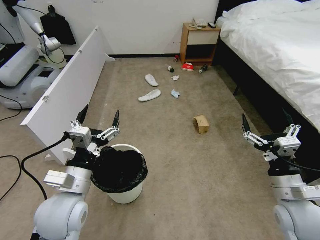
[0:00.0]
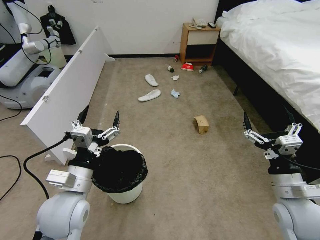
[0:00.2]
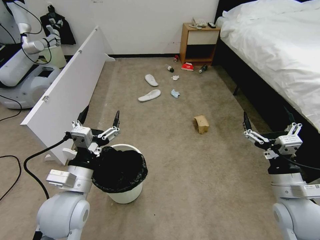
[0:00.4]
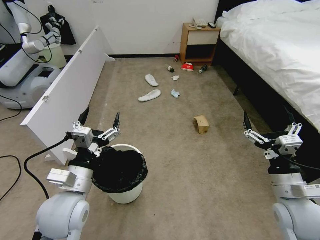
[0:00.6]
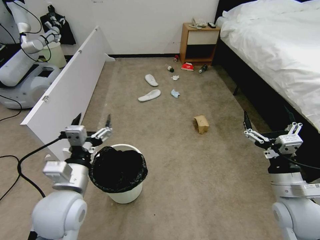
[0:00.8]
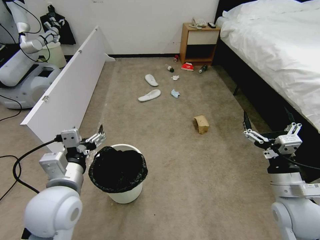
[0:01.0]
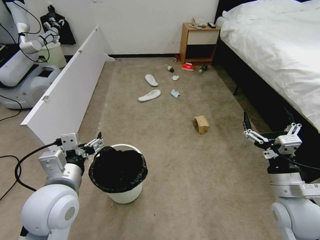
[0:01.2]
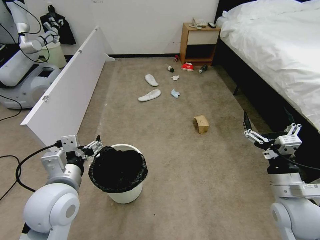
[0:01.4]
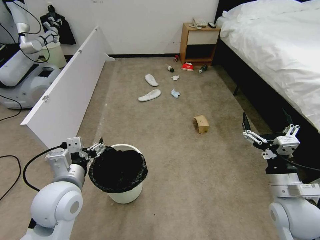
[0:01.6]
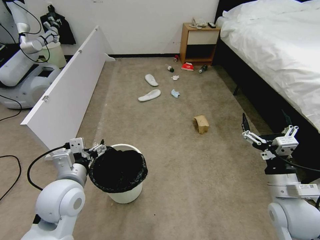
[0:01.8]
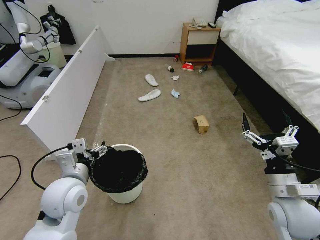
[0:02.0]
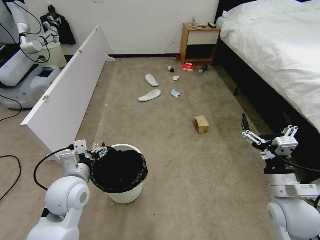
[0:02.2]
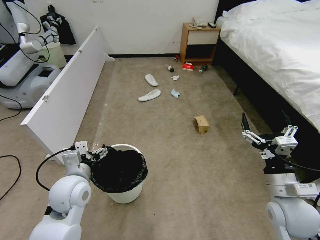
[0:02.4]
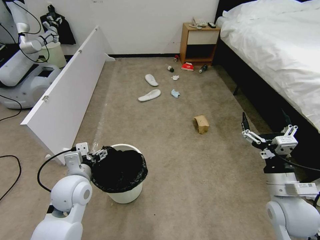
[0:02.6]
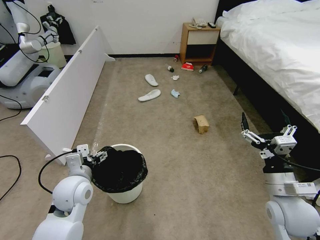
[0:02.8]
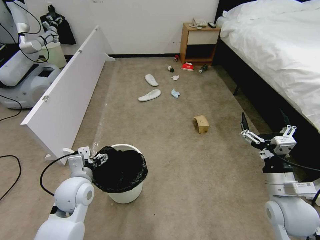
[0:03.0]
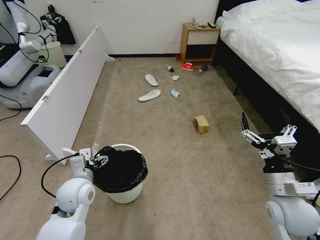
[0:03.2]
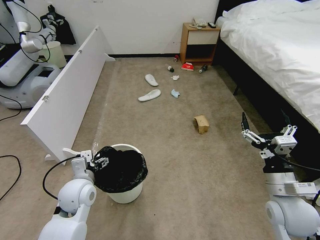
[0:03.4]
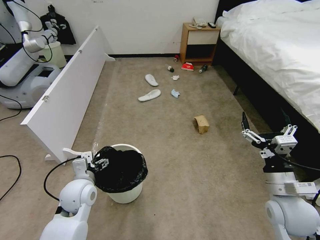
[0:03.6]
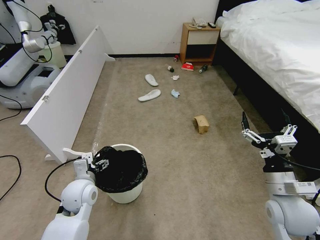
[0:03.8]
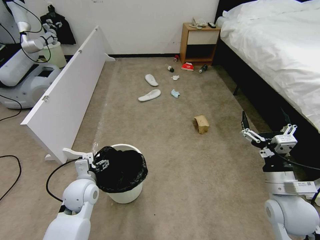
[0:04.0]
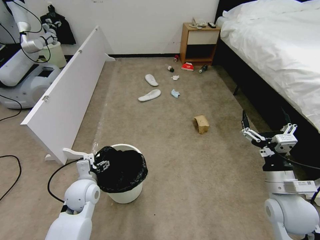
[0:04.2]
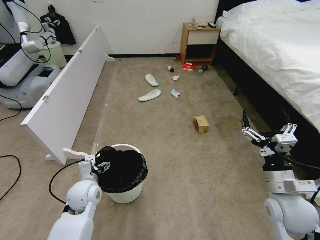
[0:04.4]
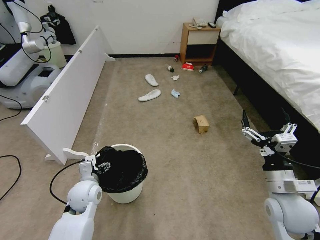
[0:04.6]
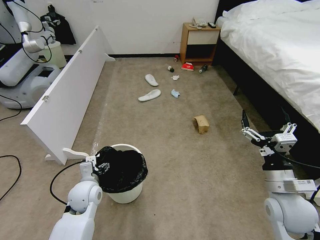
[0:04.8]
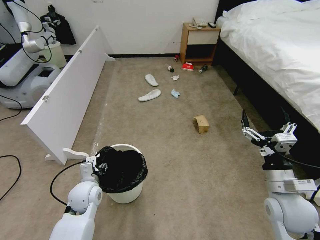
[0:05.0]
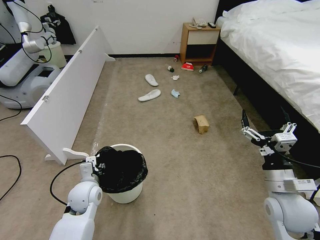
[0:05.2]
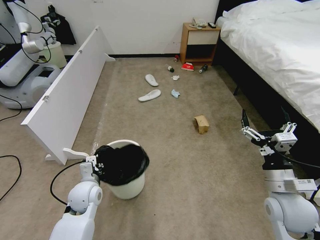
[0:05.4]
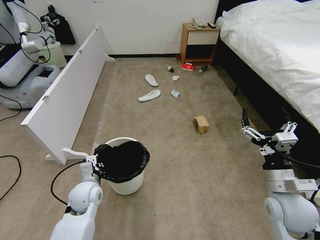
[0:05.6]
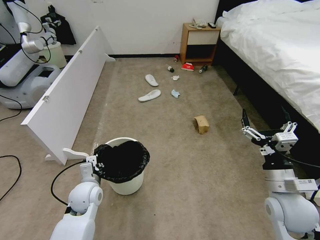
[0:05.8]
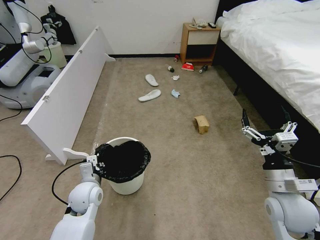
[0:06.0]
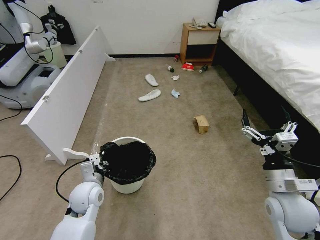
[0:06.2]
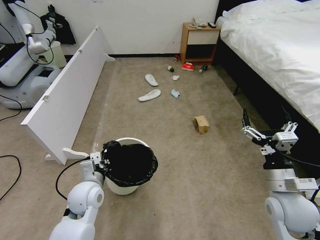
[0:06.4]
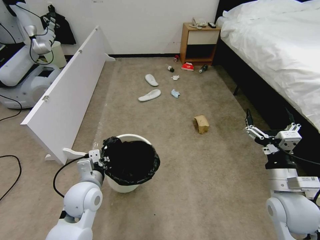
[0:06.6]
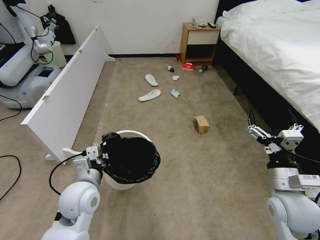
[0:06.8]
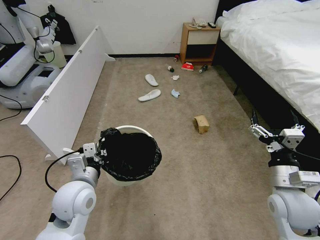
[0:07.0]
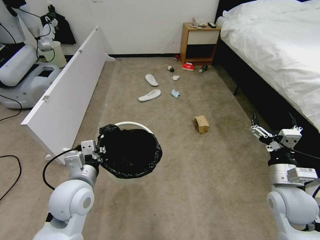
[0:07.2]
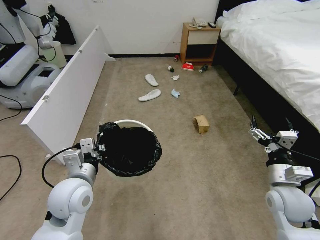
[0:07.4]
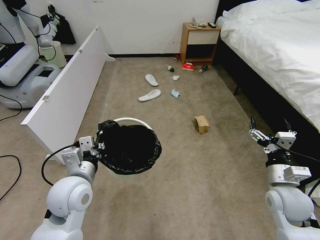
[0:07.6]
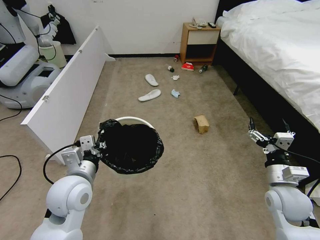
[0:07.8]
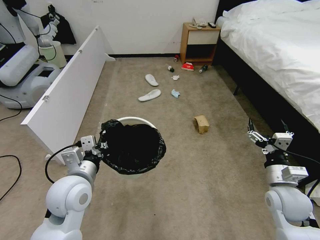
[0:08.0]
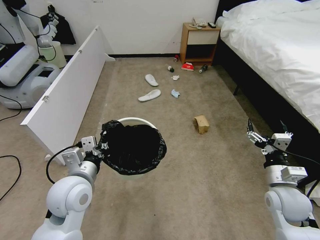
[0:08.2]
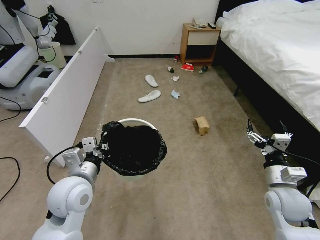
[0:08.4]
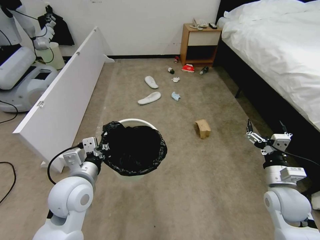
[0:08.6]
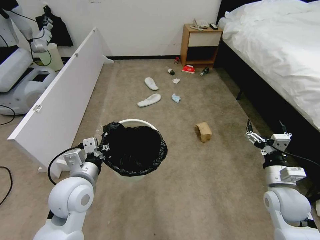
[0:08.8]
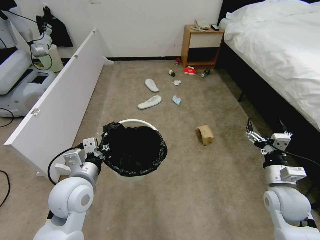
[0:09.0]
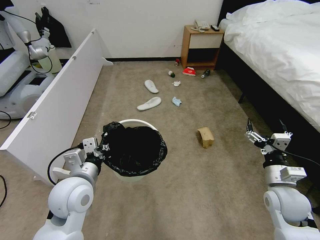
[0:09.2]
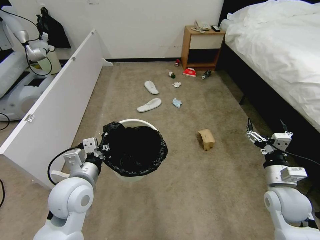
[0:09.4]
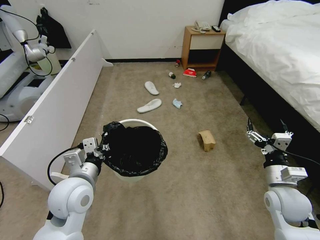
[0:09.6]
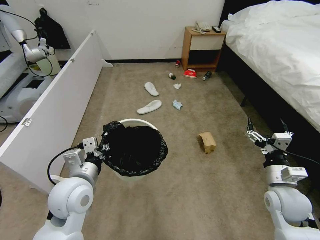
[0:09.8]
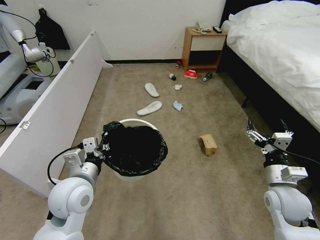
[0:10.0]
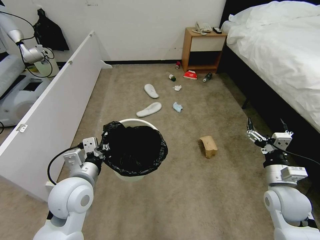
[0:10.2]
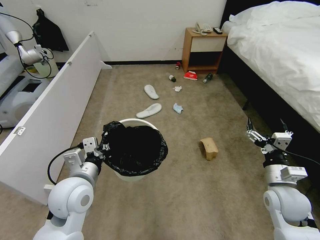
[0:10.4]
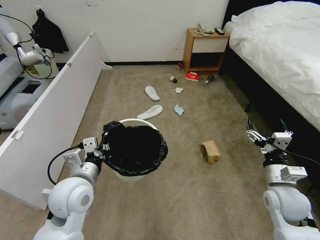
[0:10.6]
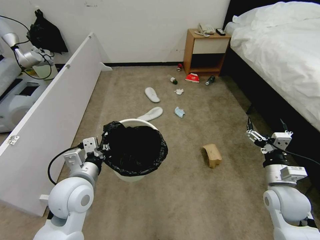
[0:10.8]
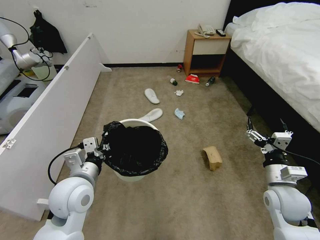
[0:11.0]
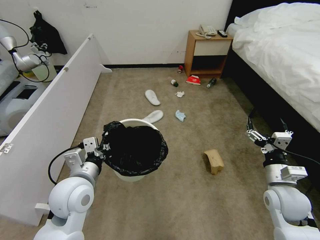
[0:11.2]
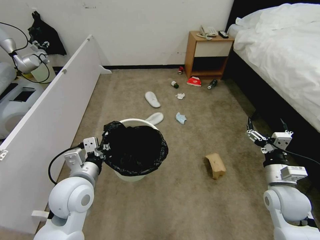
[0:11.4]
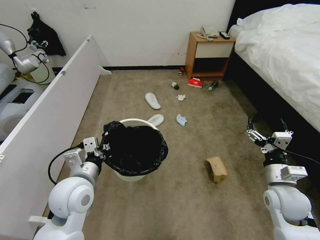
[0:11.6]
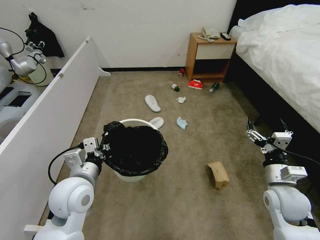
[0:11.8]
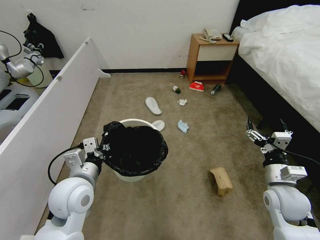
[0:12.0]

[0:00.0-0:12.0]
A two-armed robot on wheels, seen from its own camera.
Task of the whole recording: Pick up the trash bin, then pick up the garbage from the floor and place it into the trash bin.
0:01.6 to 0:03.0: The left gripper heads downward and forward, covering roughly 10 cm.
0:03.0 to 0:04.4: The left gripper shifts some 5 cm downward.
0:04.4 to 0:06.0: The left gripper closes.
0:06.0 to 0:07.6: The left gripper heads upward, covering roughly 10 cm. The right gripper ends up roughly 5 cm from where it was.
0:07.6 to 0:09.0: The grippers move only a little.
0:09.0 to 0:10.4: Both grippers stay about where they are.

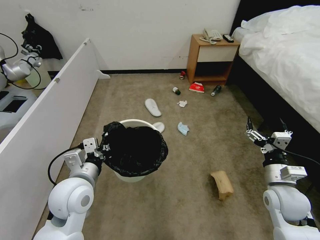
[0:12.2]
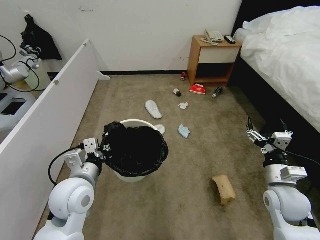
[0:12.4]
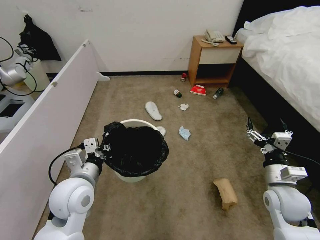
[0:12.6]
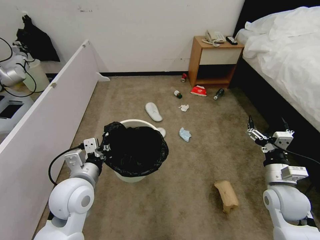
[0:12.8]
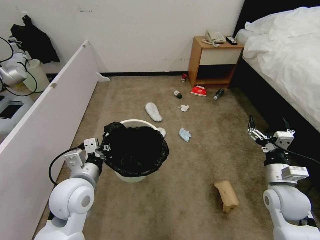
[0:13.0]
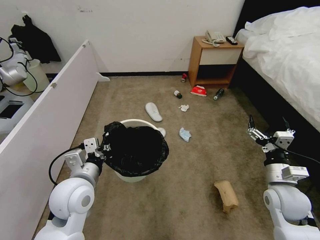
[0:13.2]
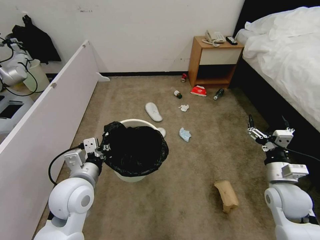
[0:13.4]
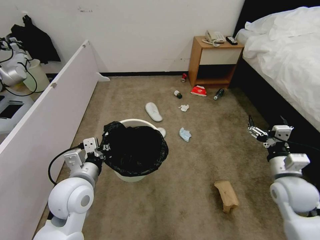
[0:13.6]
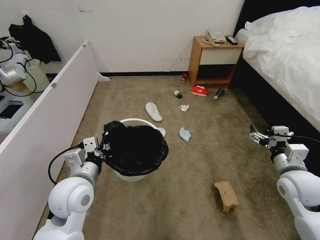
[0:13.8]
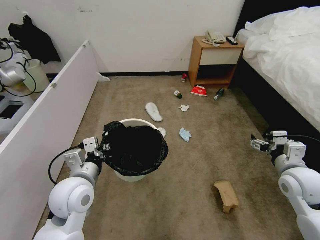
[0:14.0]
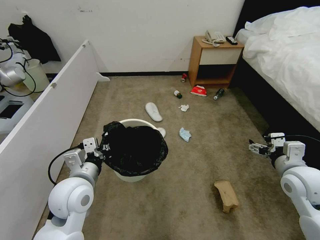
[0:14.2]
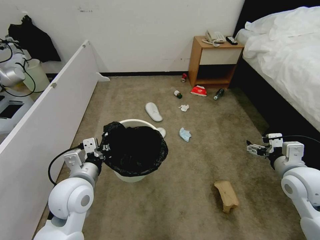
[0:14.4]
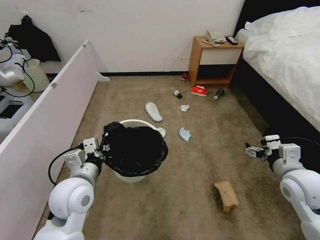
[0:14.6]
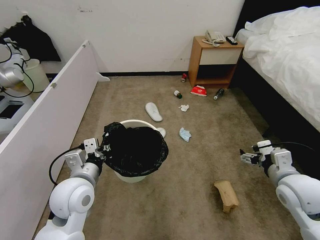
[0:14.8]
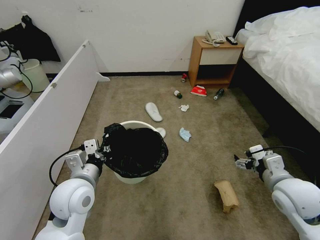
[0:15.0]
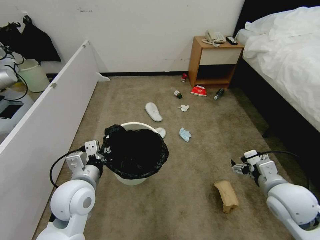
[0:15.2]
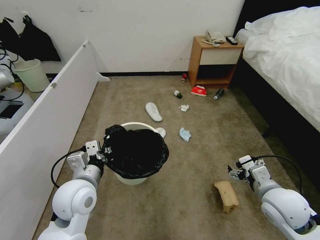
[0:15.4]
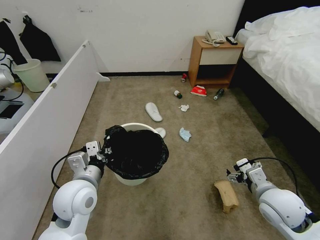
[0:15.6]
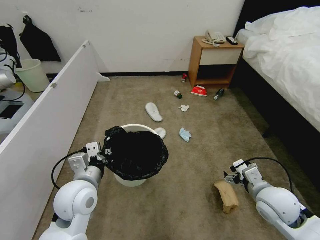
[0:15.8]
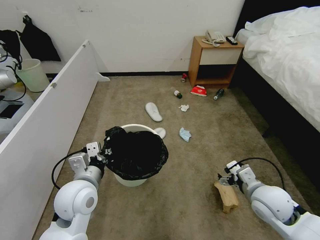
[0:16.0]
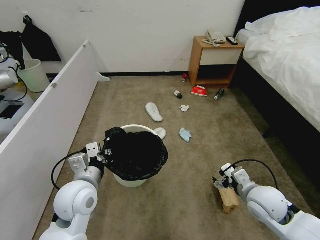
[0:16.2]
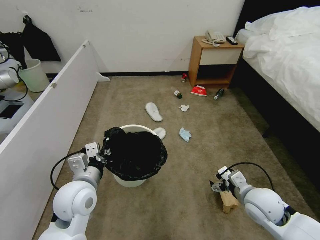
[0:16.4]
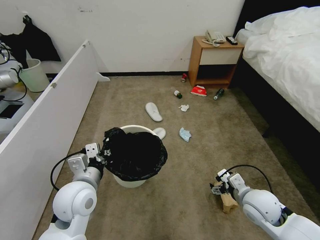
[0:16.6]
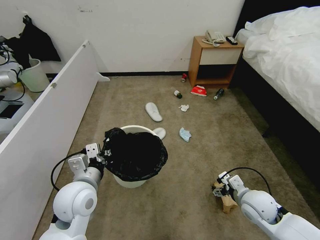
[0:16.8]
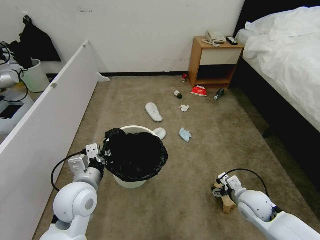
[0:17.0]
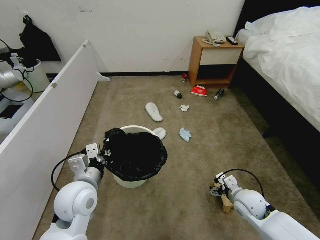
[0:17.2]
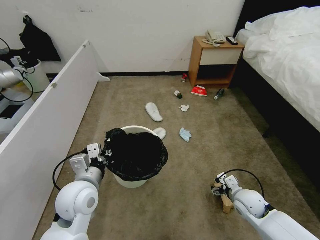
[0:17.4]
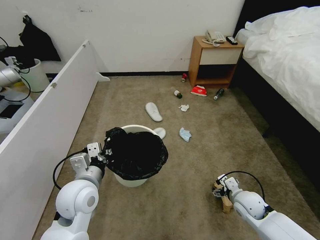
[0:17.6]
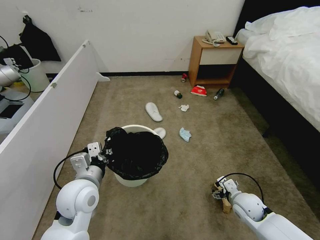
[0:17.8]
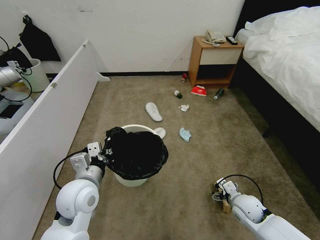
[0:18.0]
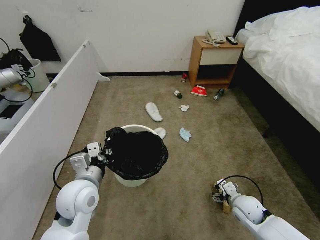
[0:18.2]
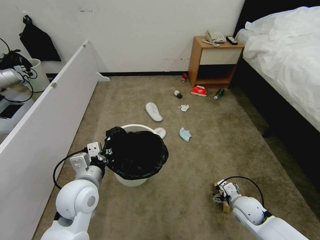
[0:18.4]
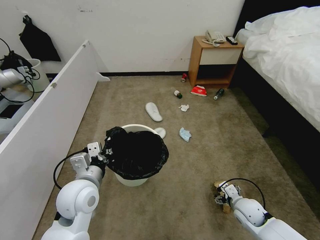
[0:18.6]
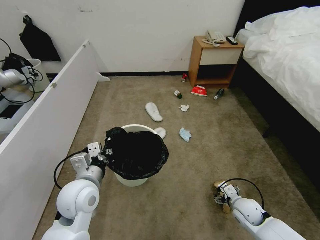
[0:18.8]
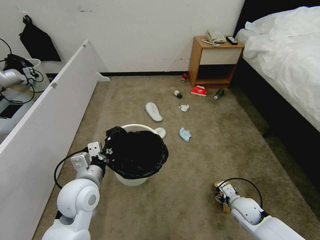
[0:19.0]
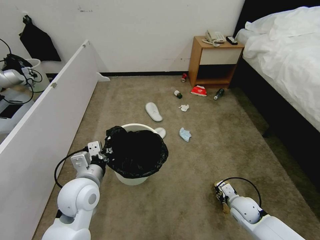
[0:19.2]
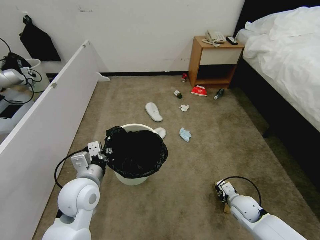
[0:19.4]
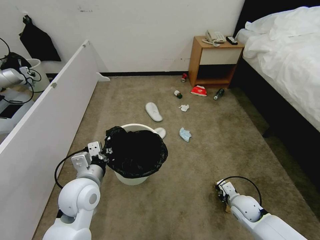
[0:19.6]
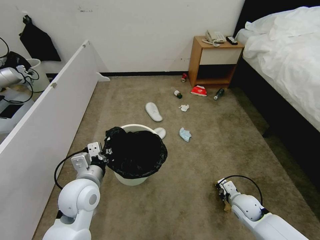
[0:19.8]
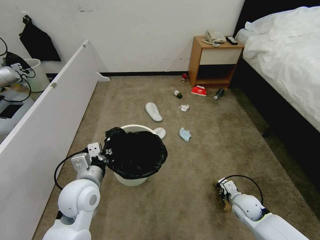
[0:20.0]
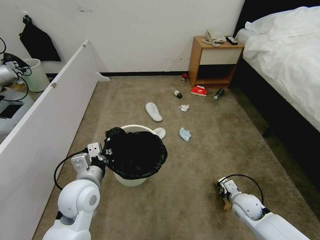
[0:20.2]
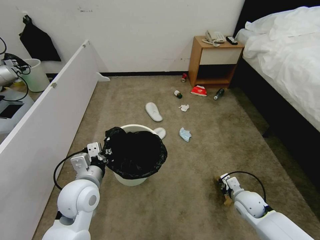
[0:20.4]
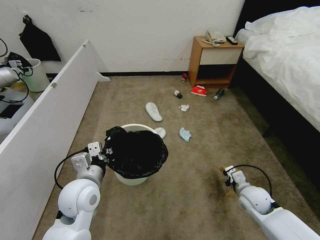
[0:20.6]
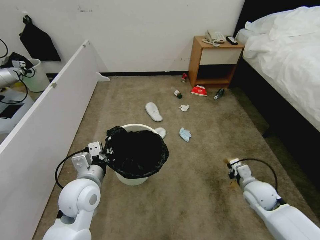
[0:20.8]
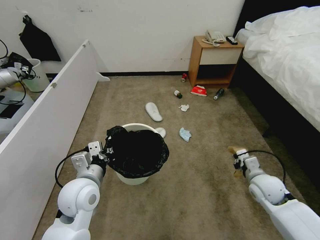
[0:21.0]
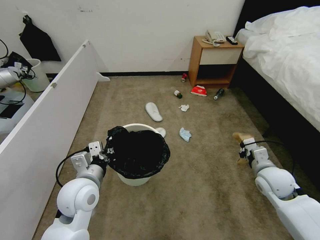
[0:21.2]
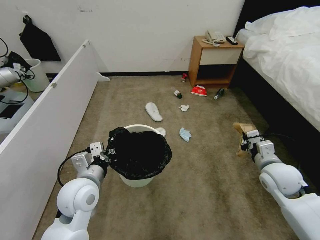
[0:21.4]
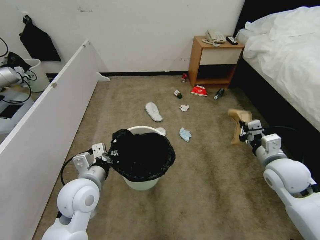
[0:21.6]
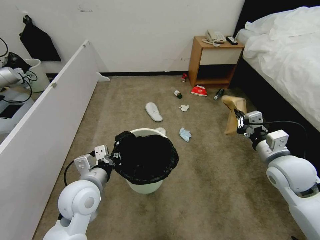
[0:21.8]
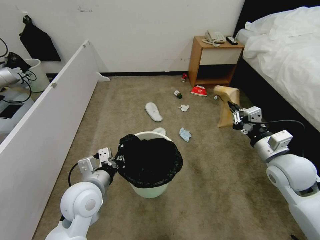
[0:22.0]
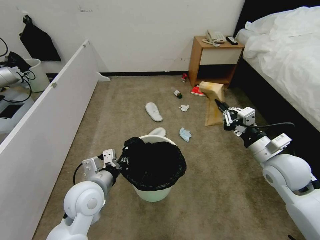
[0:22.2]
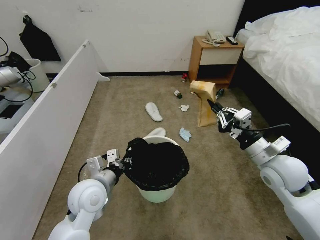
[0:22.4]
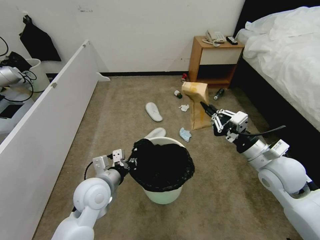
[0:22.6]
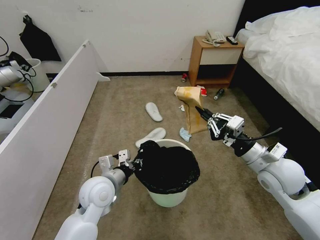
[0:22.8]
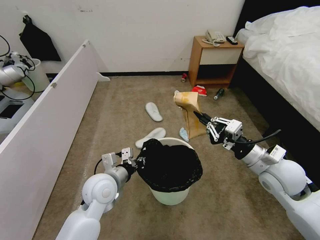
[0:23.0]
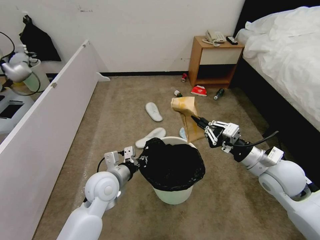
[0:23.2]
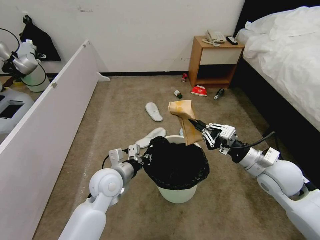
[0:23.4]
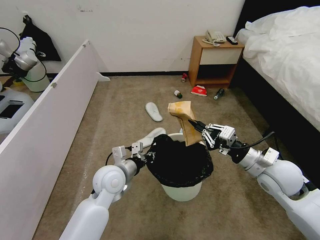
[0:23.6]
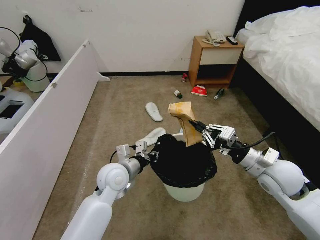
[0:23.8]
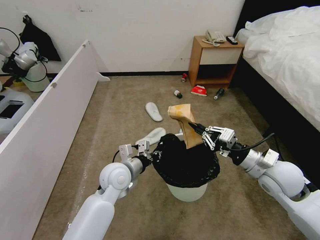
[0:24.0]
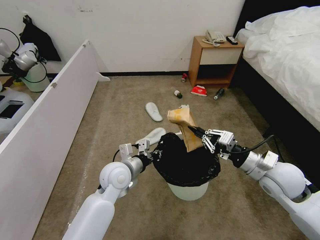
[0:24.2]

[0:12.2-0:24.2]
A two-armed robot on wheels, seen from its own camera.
Task of the whole recording: Pick up the trash bin, then pick up the garbage from the floor and place it into the trash bin.
0:12.2 to 0:13.8: The right gripper ends up roughly 5 cm from where it was.
0:13.8 to 0:15.2: The right gripper shifts by about 5 cm.
0:15.2 to 0:16.6: The right gripper heads downward, covering about 5 cm.
0:16.6 to 0:18.2: The right gripper goes about 10 cm downward.
0:18.2 to 0:19.8: The right gripper closes its fingers.
0:19.8 to 0:21.2: The right gripper is displaced upward by roughly 15 cm.
0:21.2 to 0:22.6: The right gripper shifts roughly 10 cm upward.
0:22.6 to 0:24.2: The left gripper travels forward and to the right by some 10 cm.
